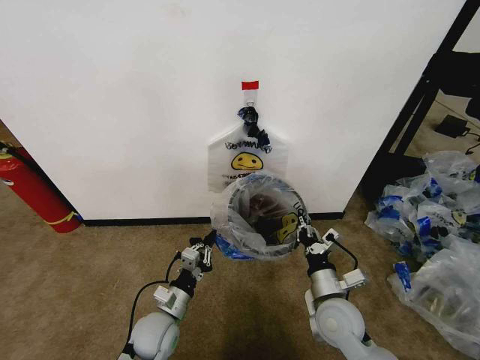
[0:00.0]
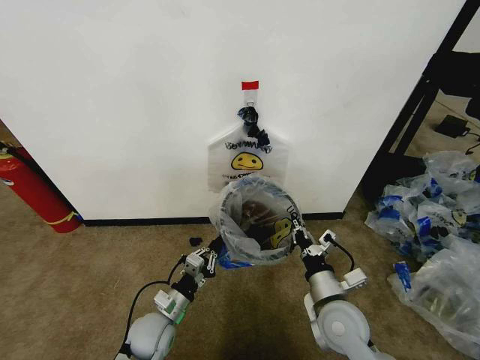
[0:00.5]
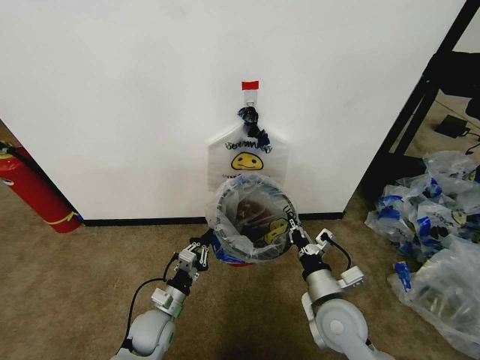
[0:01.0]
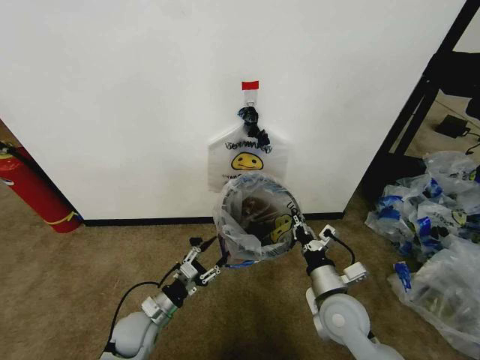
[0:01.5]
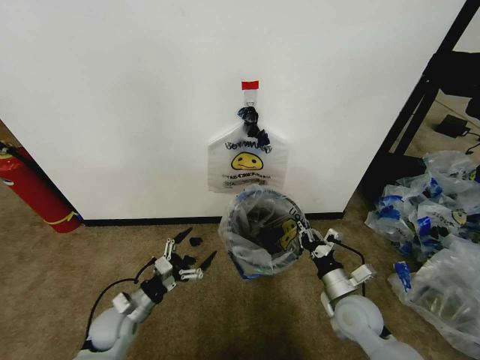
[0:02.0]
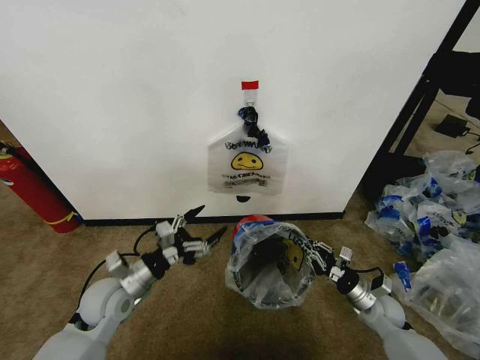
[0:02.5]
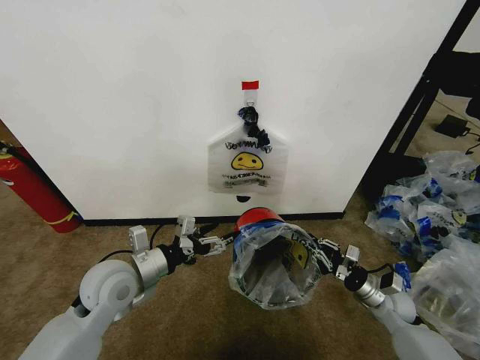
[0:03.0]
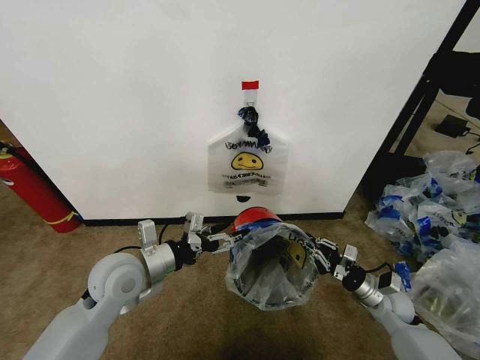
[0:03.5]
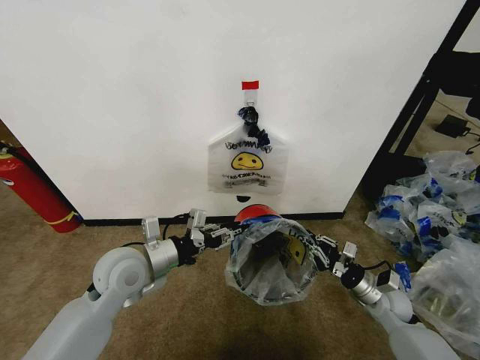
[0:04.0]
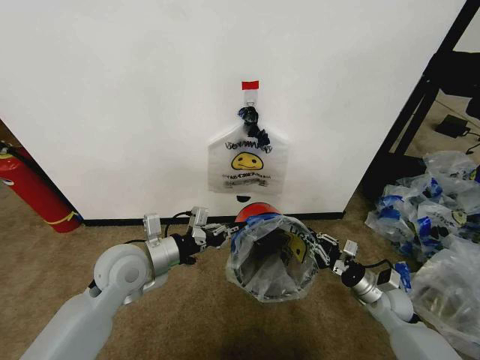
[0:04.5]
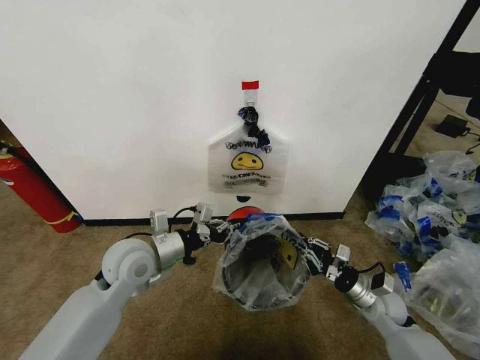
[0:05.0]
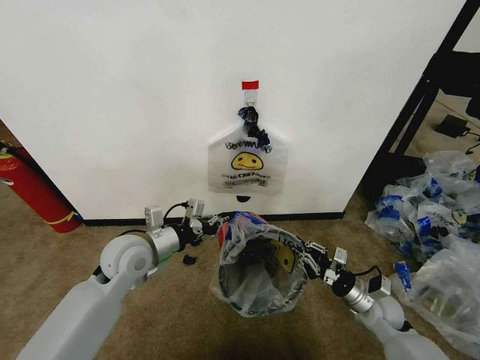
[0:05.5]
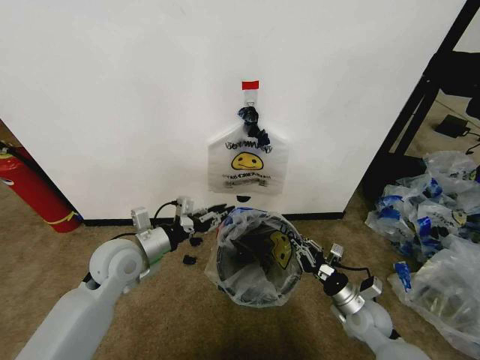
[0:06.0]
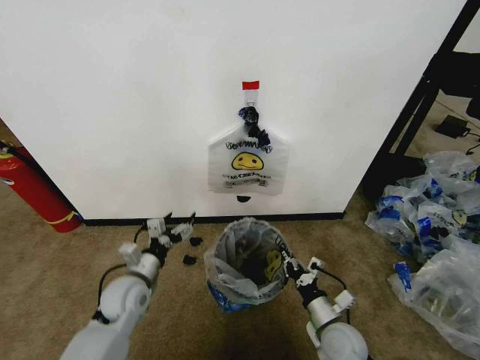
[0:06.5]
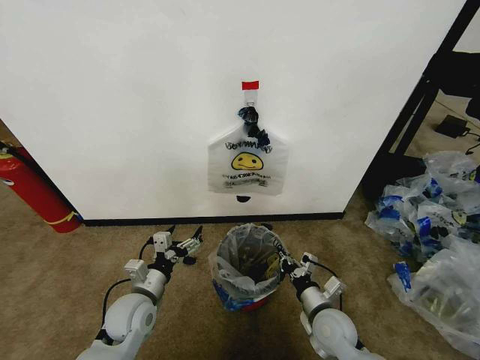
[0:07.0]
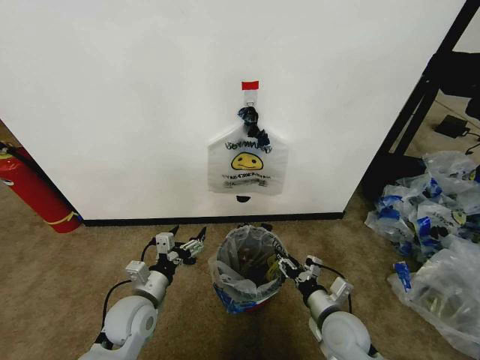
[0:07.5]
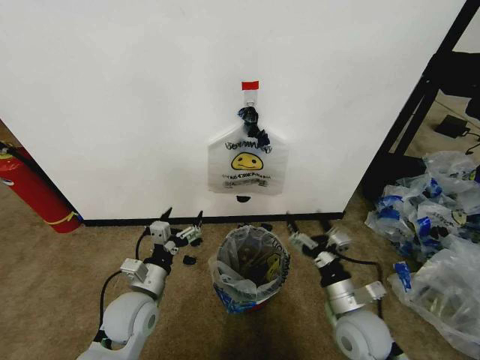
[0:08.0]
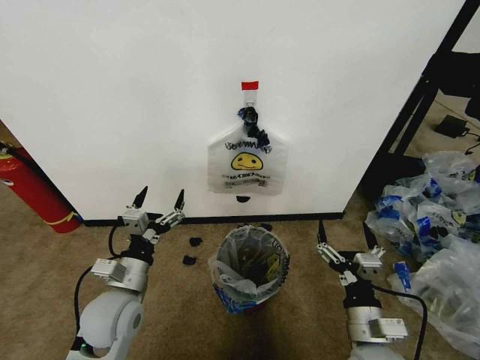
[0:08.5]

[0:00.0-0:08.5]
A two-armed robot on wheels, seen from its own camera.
Task of the whole recording: Pick up the garbage bag from the wall and place it over the trash bin.
0:00.0 to 0:02.0: The right gripper goes approximately 5 cm to the right, while the left gripper shifts approximately 10 cm to the left, and opens up.
0:02.0 to 0:04.0: The right gripper goes about 10 cm to the right. Meanwhile the left gripper shifts about 20 cm upward, and closes up.
0:04.0 to 0:06.5: The right gripper moves to the left and backward, about 15 cm; the left gripper moves downward, approximately 10 cm, and opens its fingers.
0:06.5 to 0:08.5: The grippers both shift upward and backward by approximately 10 cm. The right gripper opens its fingers.
